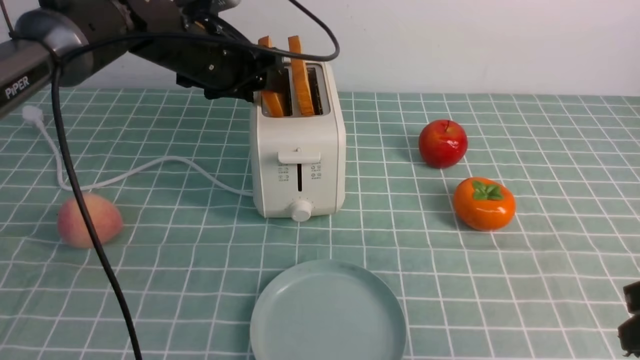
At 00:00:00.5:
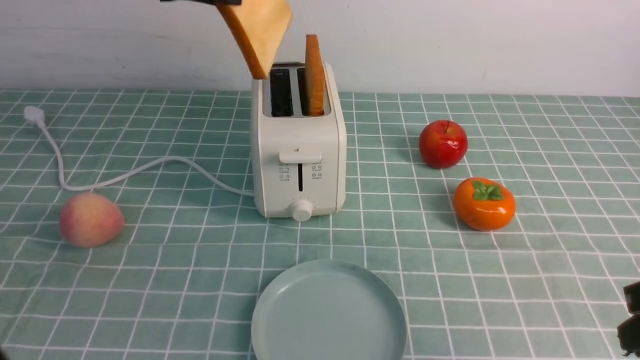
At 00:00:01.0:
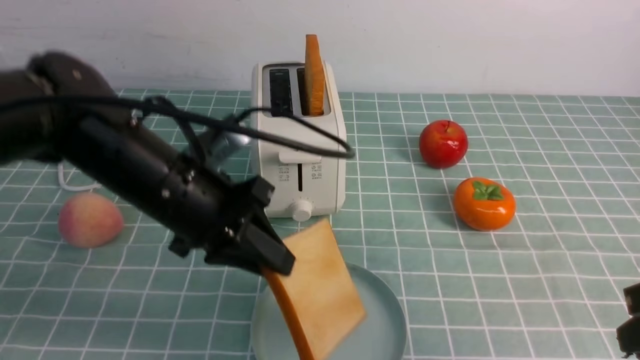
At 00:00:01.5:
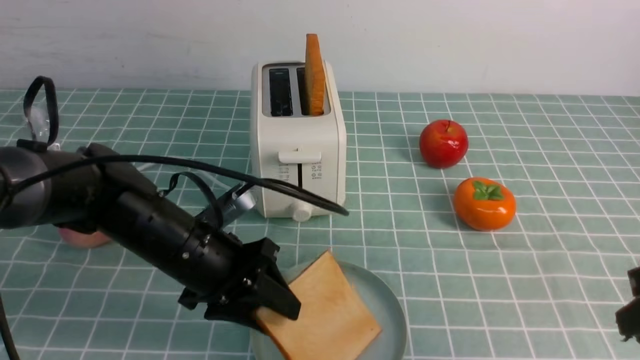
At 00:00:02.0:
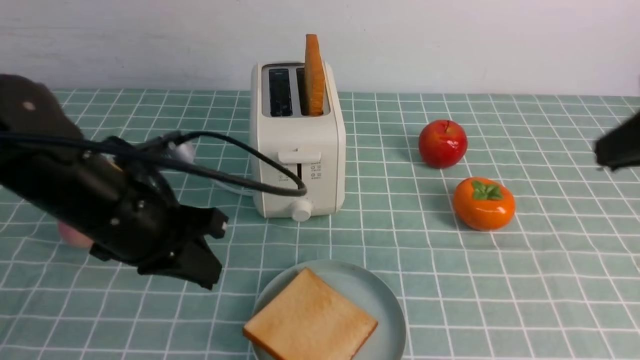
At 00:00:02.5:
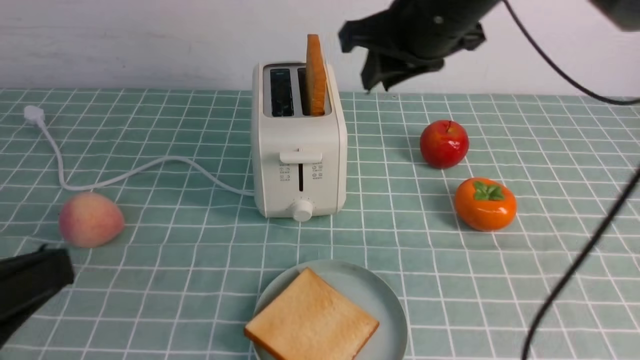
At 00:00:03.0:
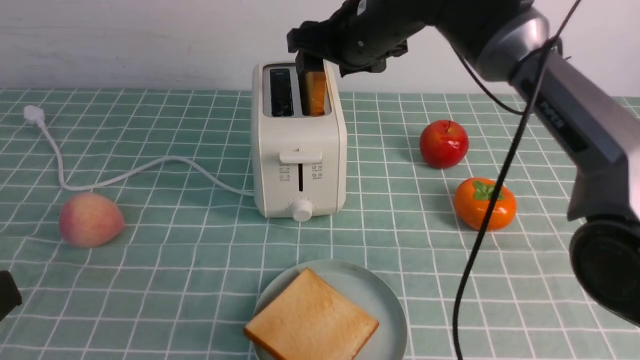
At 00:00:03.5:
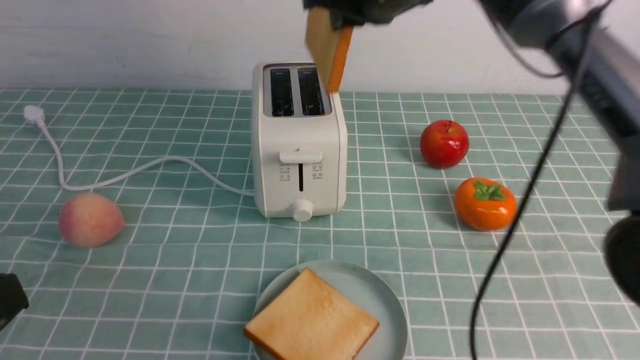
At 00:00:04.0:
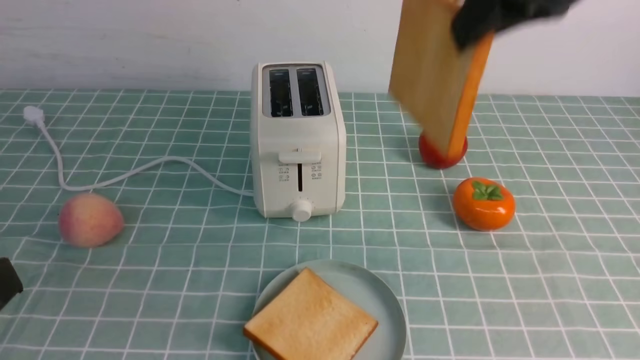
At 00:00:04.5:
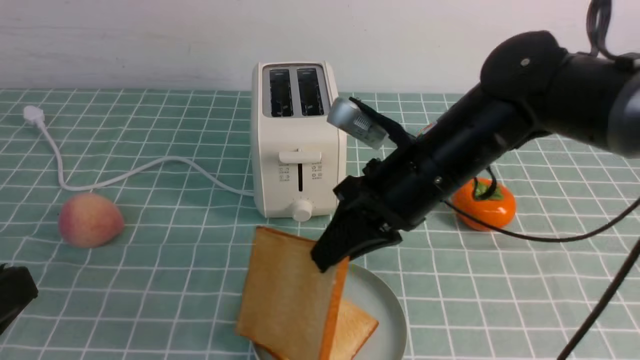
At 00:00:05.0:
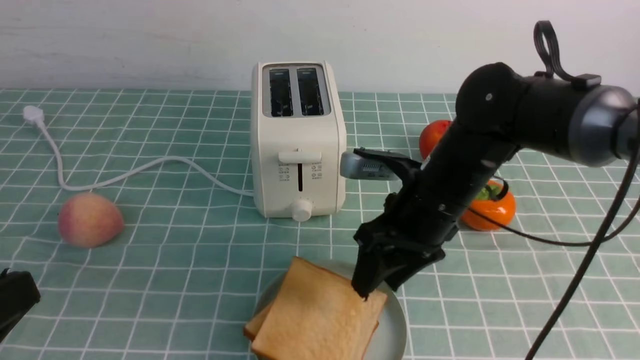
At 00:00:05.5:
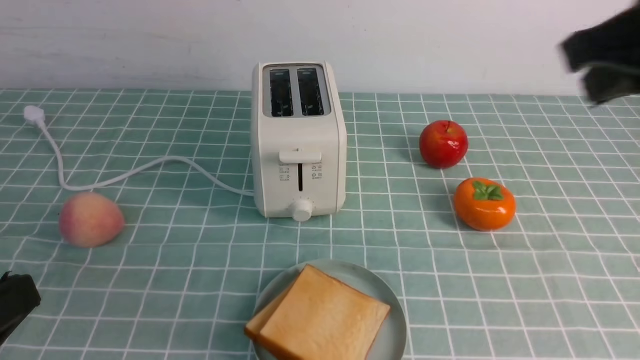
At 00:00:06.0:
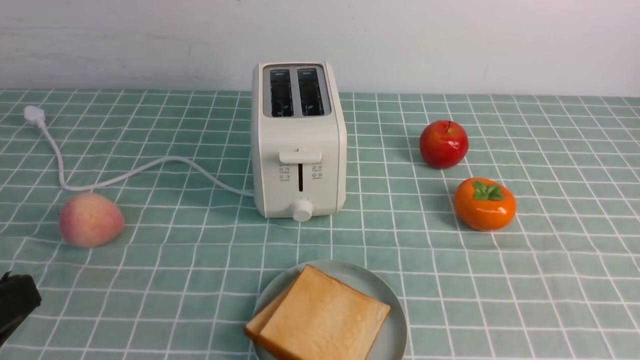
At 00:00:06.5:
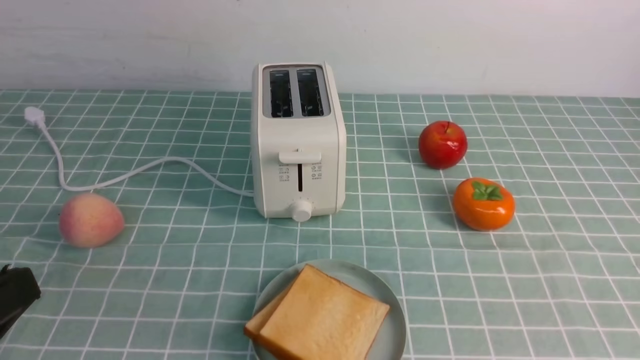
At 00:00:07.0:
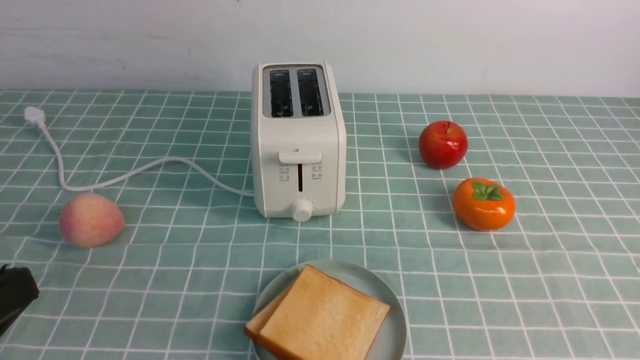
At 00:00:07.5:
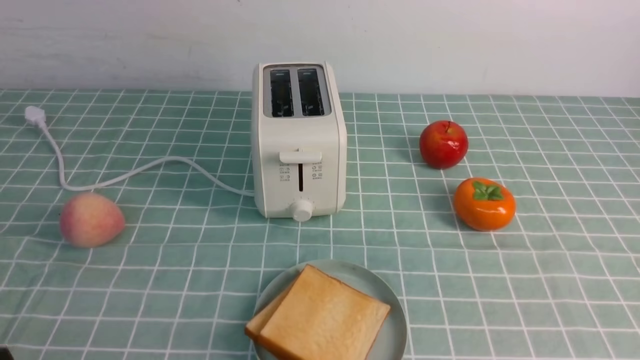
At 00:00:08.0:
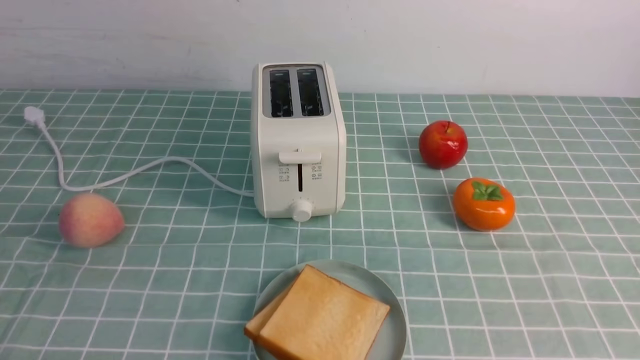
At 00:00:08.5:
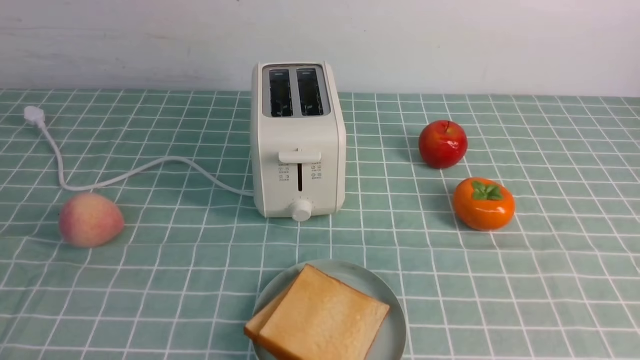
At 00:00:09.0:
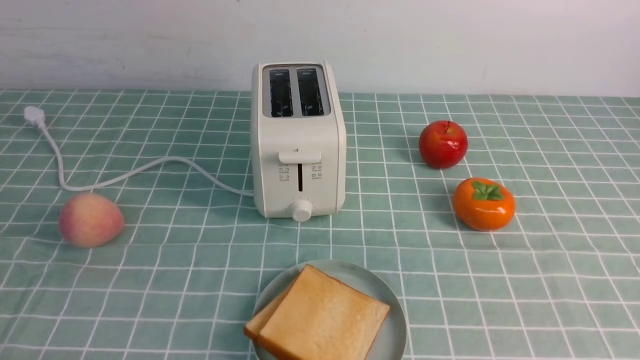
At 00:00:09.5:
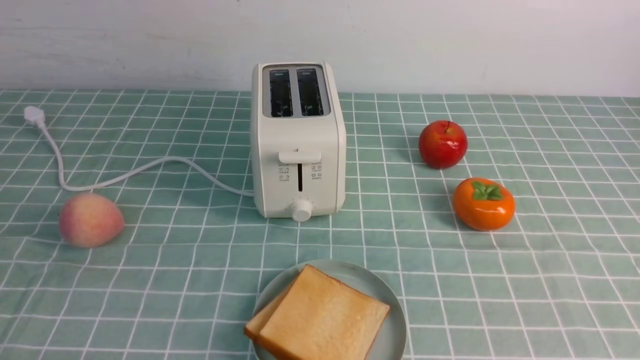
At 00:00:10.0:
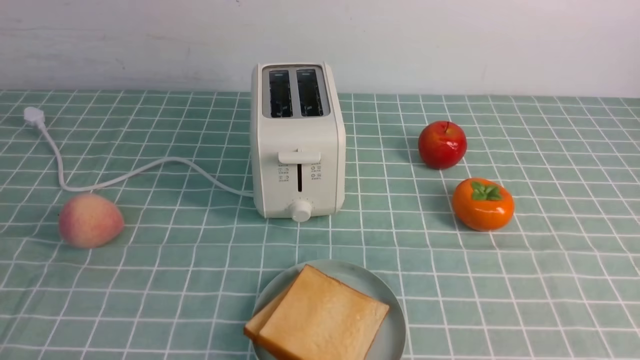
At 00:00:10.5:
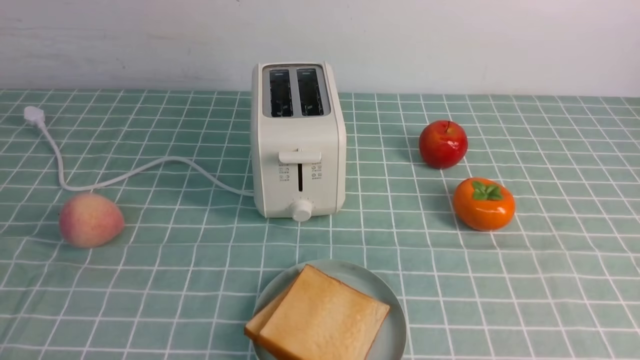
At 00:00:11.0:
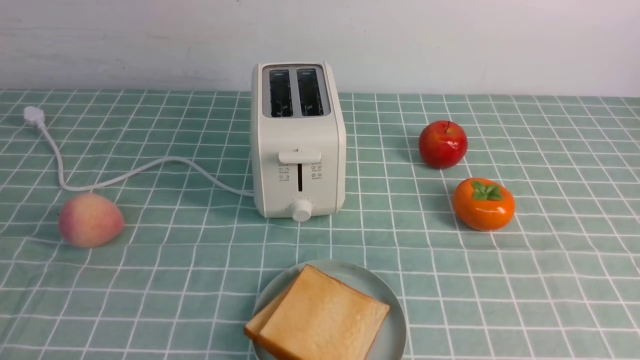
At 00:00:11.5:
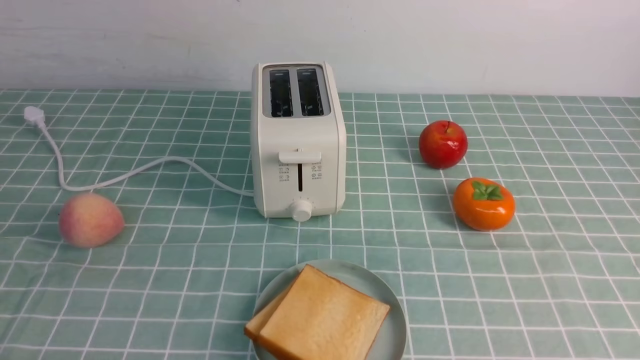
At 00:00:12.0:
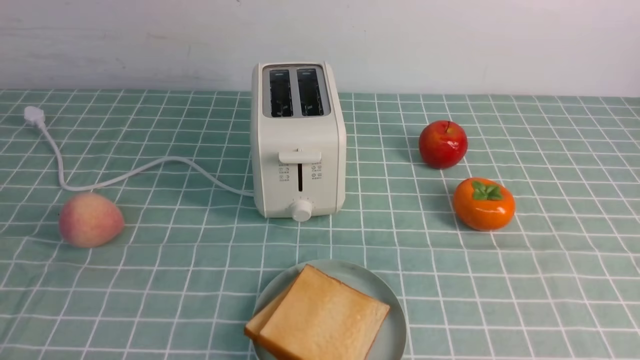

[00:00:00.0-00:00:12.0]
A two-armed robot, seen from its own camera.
Task of the whole recording: take toasted bread from bread machine on blue coffee table place on plate.
Step, 00:00:01.0 to 00:00:02.0: use the left arm to put a slice of bread into the empty plate.
Step, 00:00:02.5 to 00:00:03.5: use the right arm to take out a slice of bread.
Step, 00:00:04.0 to 00:00:05.0: use the right arm to put a slice of bread into the plate.
00:00:00.0 to 00:00:02.0: The right gripper heads upward and forward, covering approximately 15 cm. The left gripper moves up and down over about 25 cm, changing direction 2 times, and closes.
00:00:02.0 to 00:00:04.0: The right gripper is displaced to the left by some 10 cm, reaches approximately 20 cm forward, then returns, and opens and closes again, while the left gripper moves backward, approximately 20 cm.
00:00:04.0 to 00:00:06.0: The right gripper moves backward and to the right, about 35 cm, and opens, then closes again.
00:00:06.0 to 00:00:08.0: The left gripper is displaced downward by approximately 15 cm.
